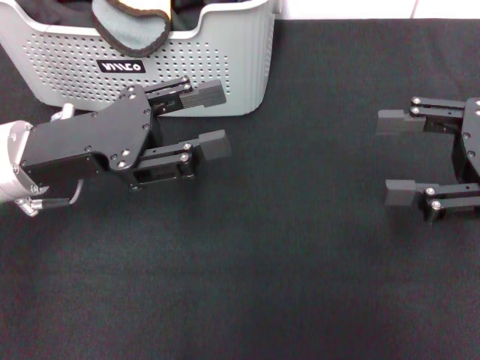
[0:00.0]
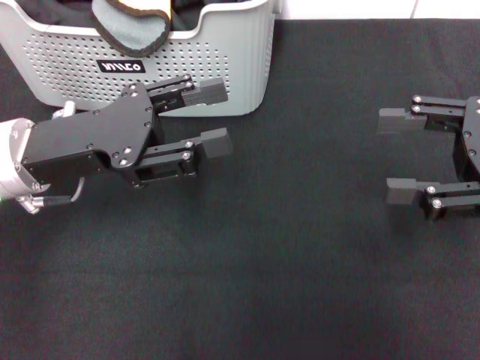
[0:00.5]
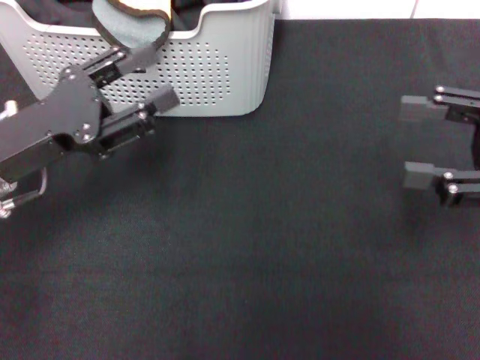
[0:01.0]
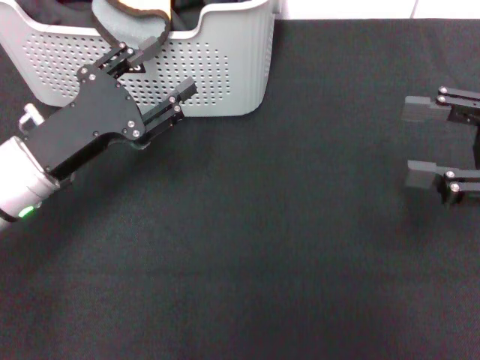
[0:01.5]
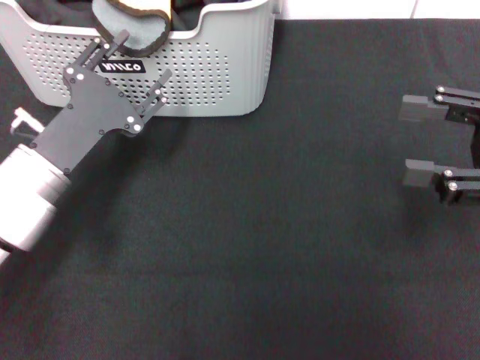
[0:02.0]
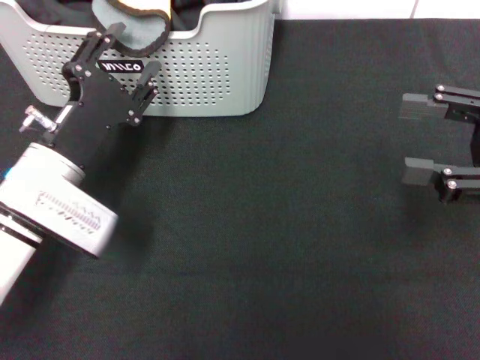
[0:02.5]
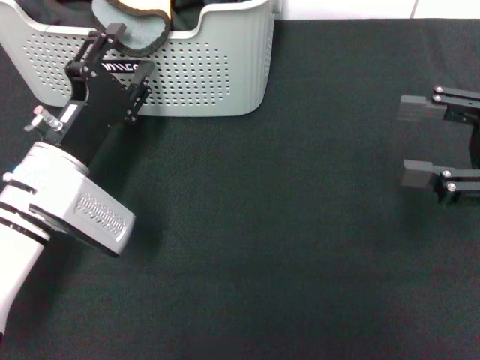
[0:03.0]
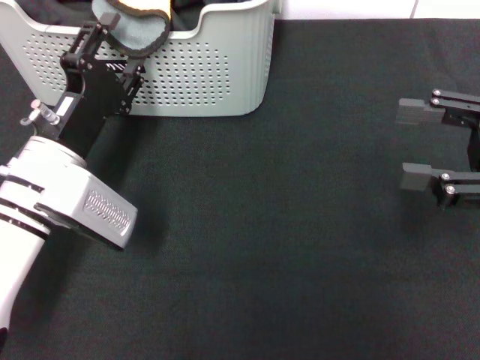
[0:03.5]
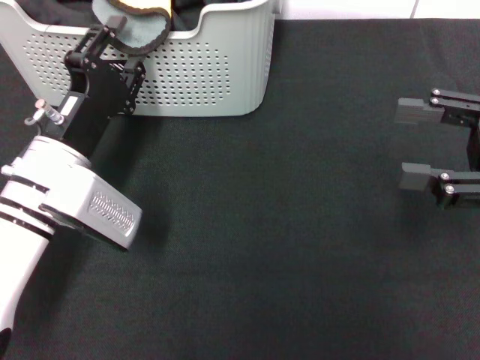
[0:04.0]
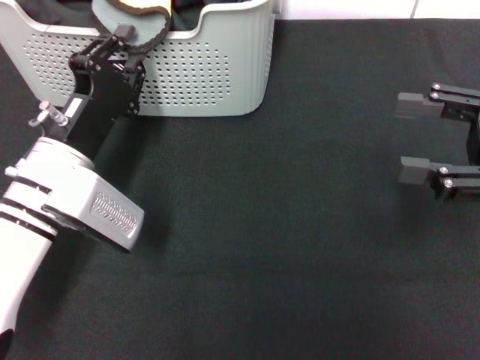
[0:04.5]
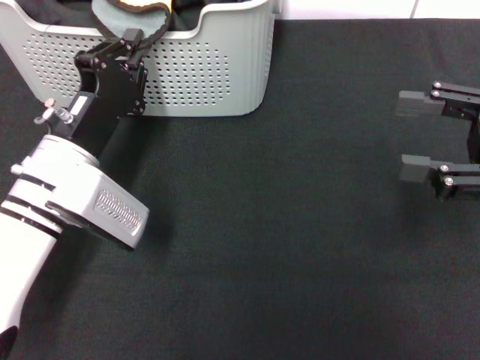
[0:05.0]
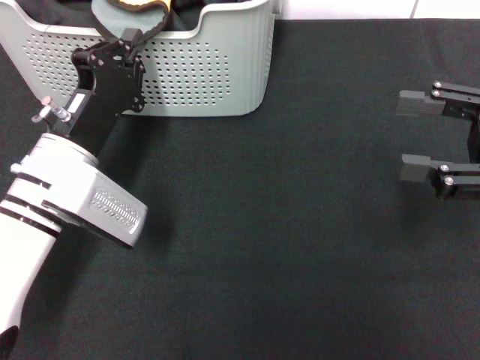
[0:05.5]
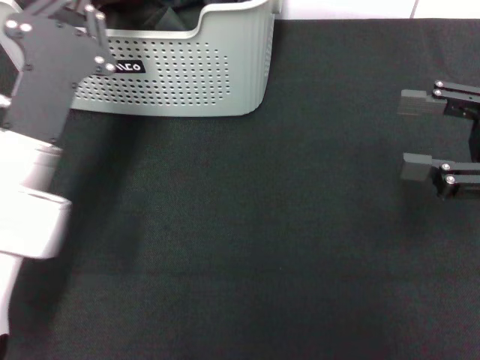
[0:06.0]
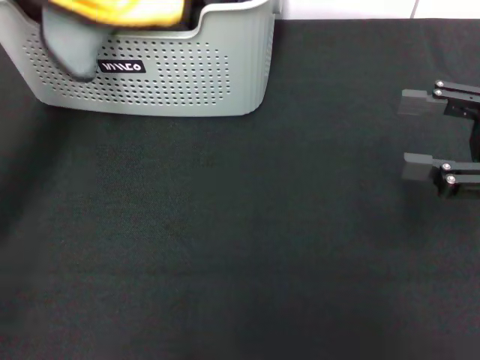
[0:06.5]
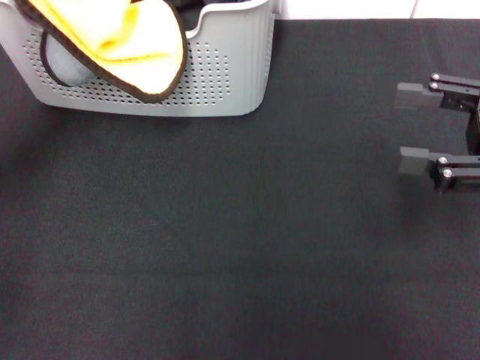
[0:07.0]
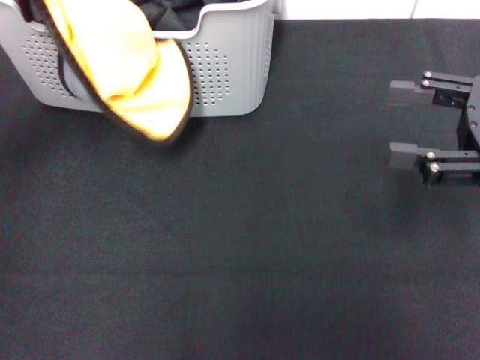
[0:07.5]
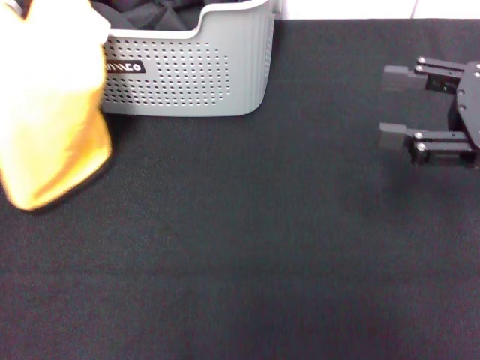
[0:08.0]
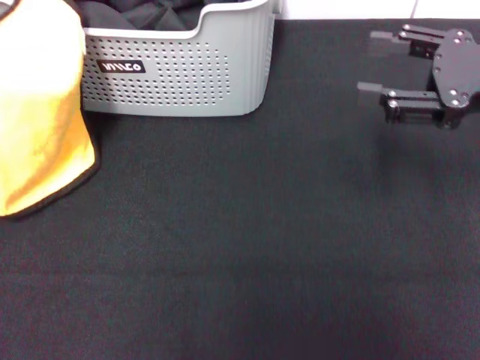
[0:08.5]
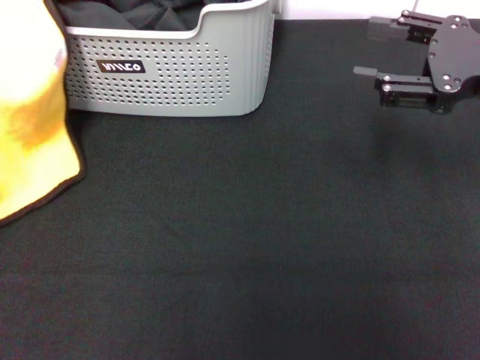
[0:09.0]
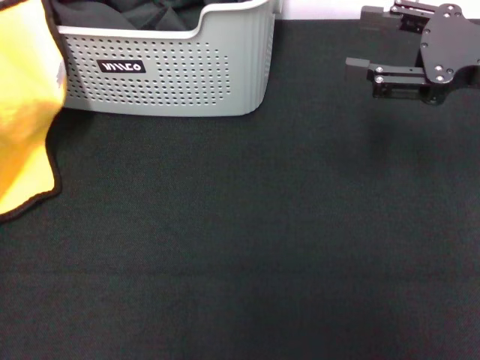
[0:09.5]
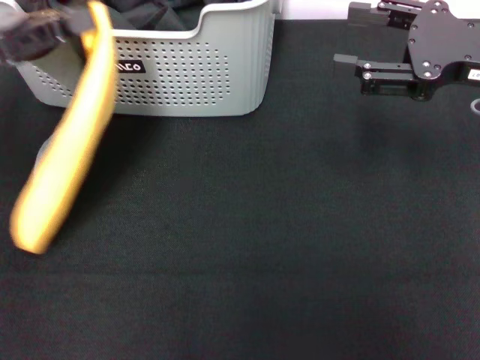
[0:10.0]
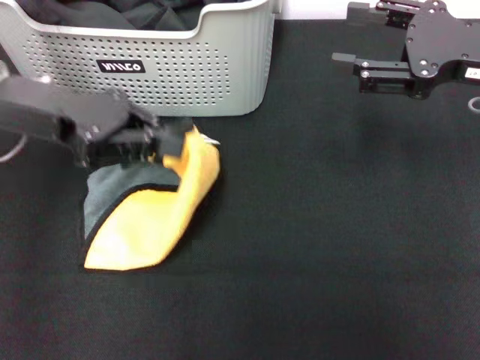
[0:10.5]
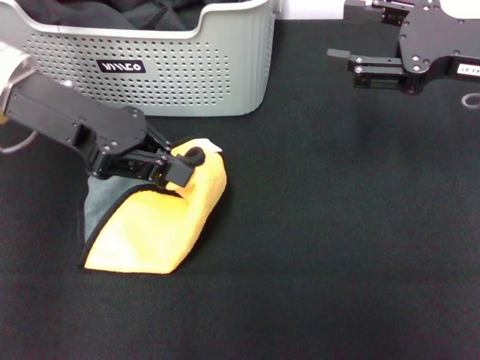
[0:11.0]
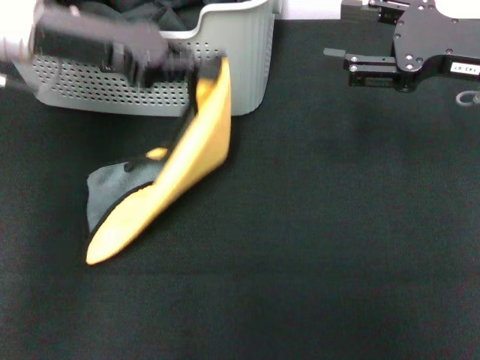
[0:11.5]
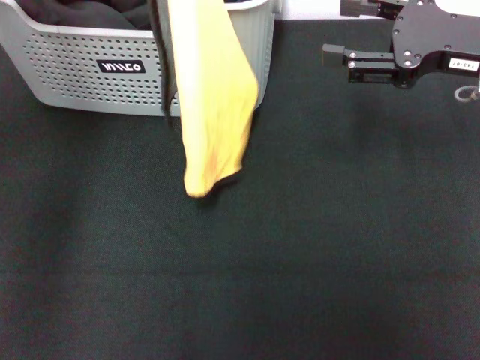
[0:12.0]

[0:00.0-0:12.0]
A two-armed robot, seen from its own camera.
Task of the whole recording: pick up the towel from the storage box and lay it flat on the black tablecloth.
Step, 0:00.0 to 0:05.5: Pick up a towel with the left gripper.
0:00.0 to 0:02.0: The left gripper is displaced downward by some 5 cm.
0:04.0 to 0:06.0: The left gripper closes up.
0:06.0 to 0:08.0: The left gripper is displaced to the left and upward by roughly 20 cm.
0:08.0 to 0:10.0: The right gripper moves approximately 5 cm. Meanwhile the left gripper travels to the right and forward by roughly 10 cm.
0:10.0 to 0:12.0: The left gripper shifts some 10 cm upward and forward.

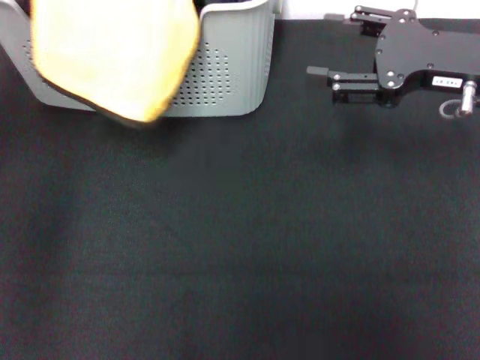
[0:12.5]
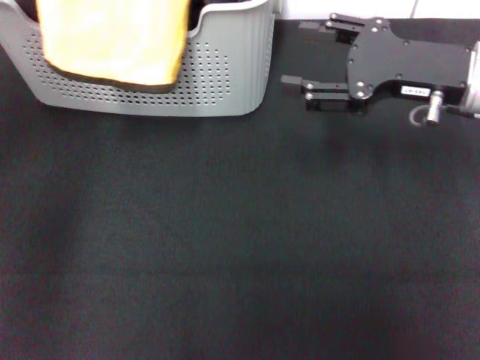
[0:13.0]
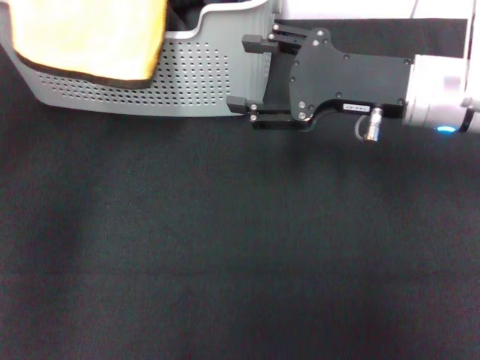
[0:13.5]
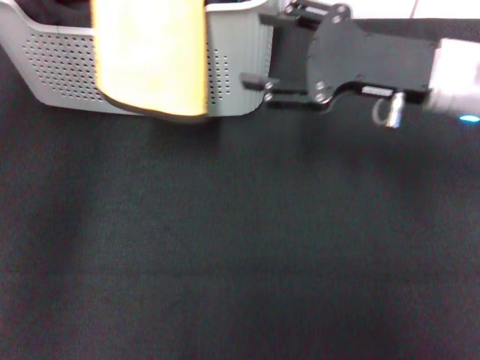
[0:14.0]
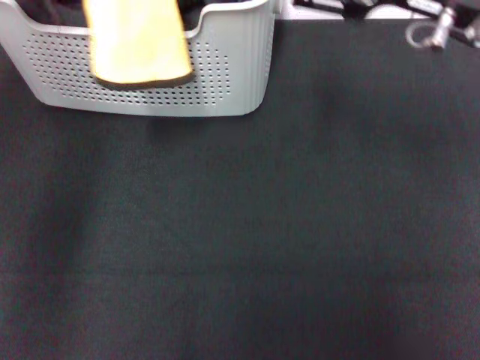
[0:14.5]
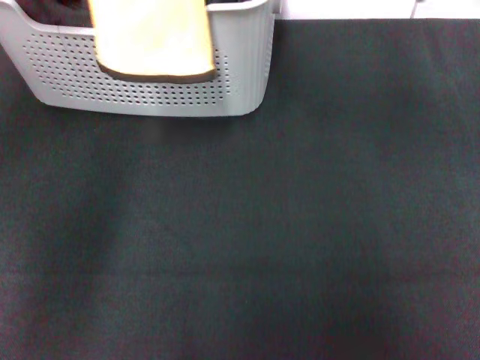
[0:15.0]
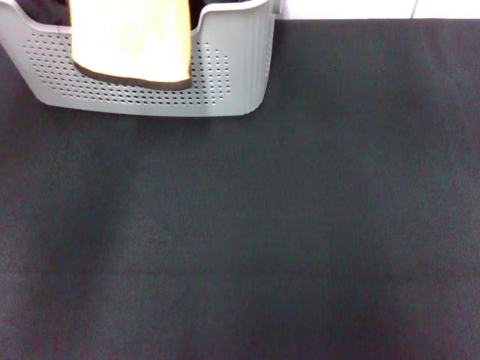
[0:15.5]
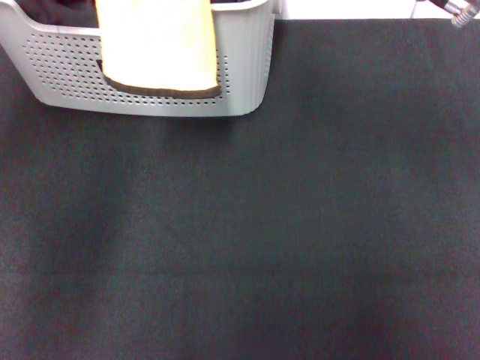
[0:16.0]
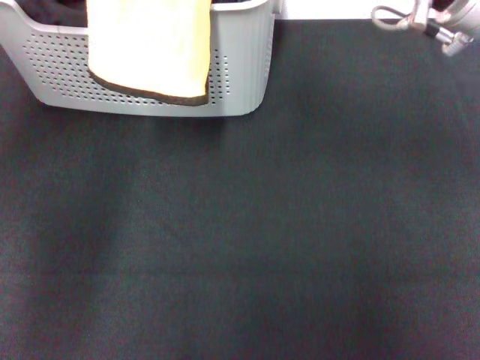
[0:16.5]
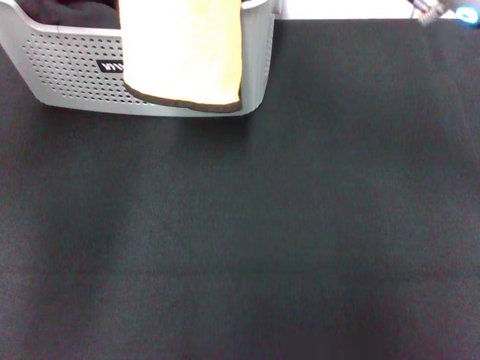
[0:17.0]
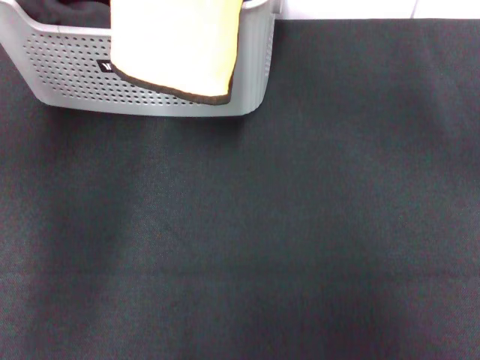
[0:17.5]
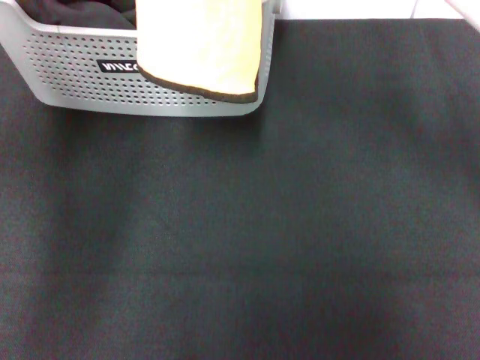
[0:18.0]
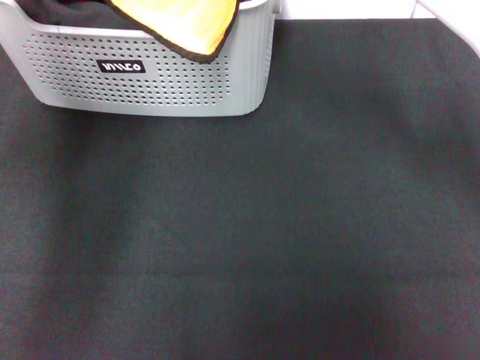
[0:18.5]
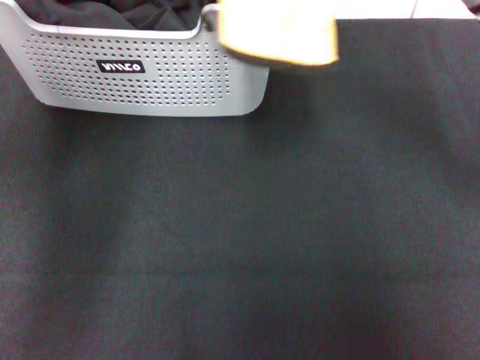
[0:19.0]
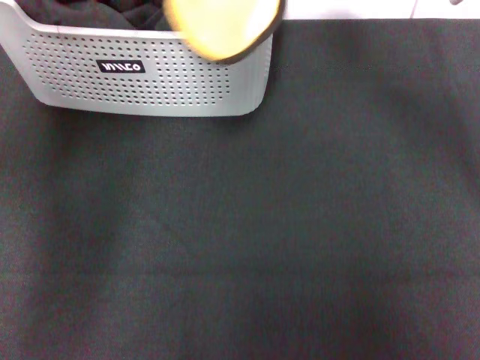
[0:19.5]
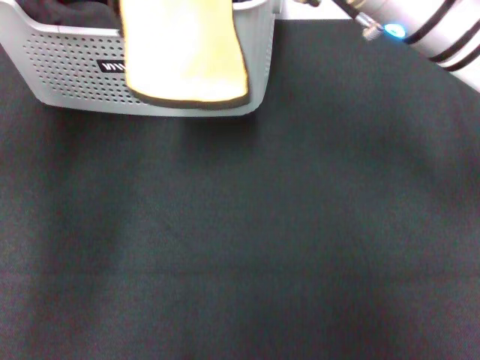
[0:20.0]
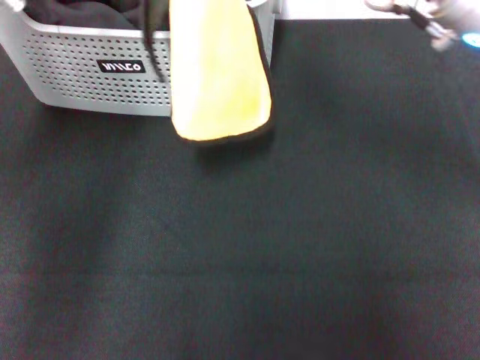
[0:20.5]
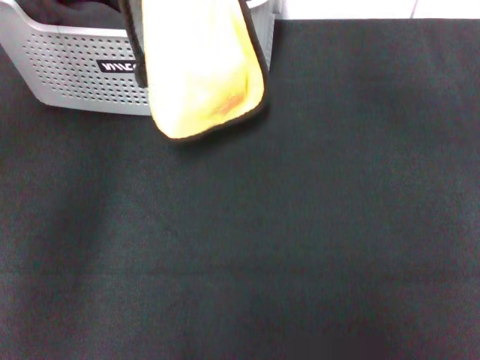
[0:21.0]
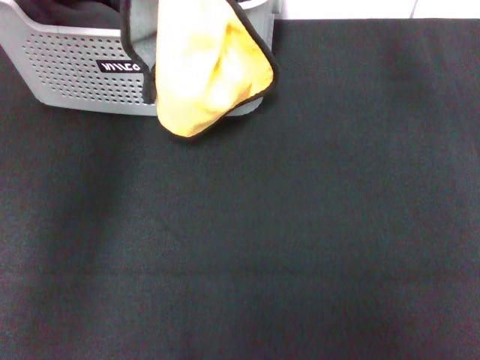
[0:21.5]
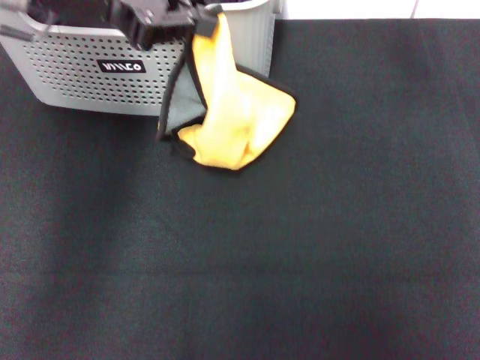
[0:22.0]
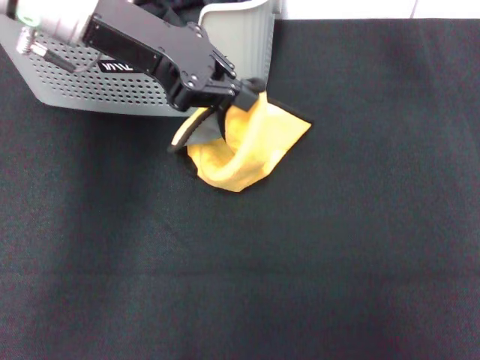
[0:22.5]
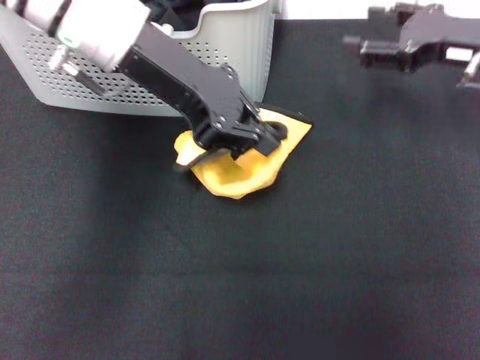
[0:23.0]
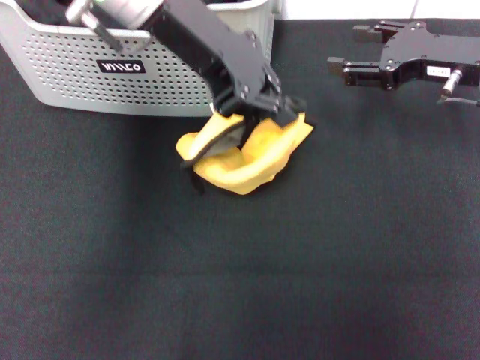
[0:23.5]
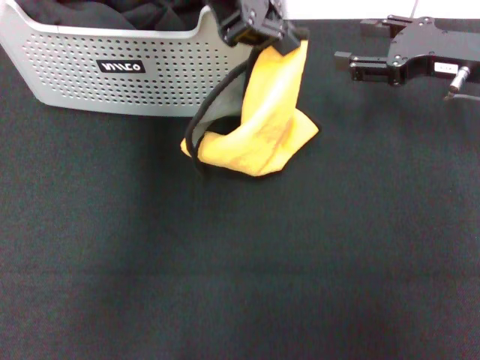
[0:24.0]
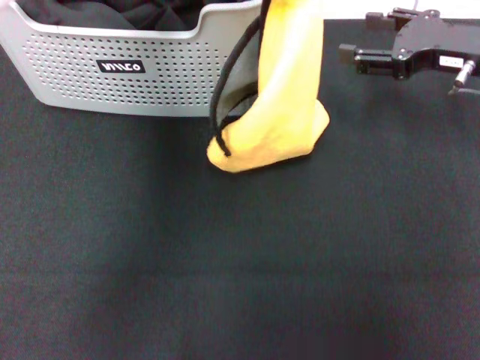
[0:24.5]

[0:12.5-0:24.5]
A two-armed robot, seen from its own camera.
Task of the whole recording: pick up the towel from the storage box and lay it flat on the black tablecloth.
0:12.5 to 0:14.5: The right gripper ends up about 5 cm from where it was.
0:16.5 to 0:18.5: The right gripper goes roughly 10 cm to the left and forward; the left gripper is displaced to the right by roughly 5 cm.
0:18.5 to 0:20.5: The right gripper goes left and right, roughly 10 cm each way, reversing 2 times.
0:20.5 to 0:22.5: The left gripper travels to the right by about 5 cm, while the right gripper goes some 10 cm to the right.
0:22.5 to 0:24.5: The left gripper travels upward and to the right by about 15 cm. The right gripper heads downward, covering about 5 cm.

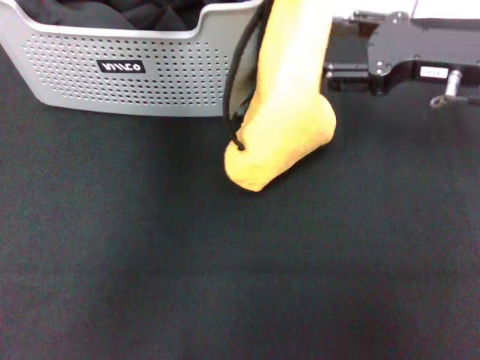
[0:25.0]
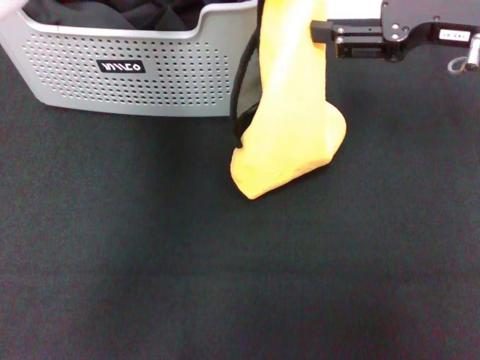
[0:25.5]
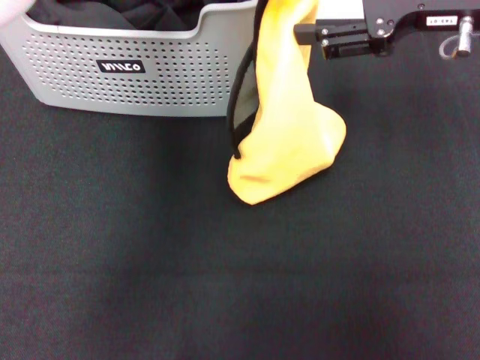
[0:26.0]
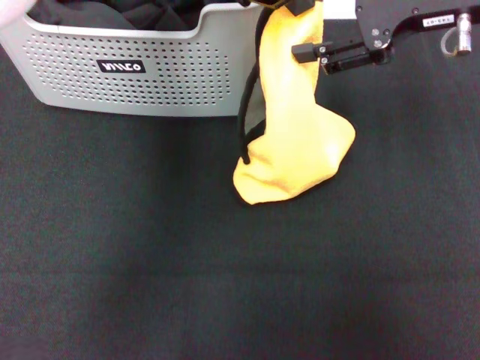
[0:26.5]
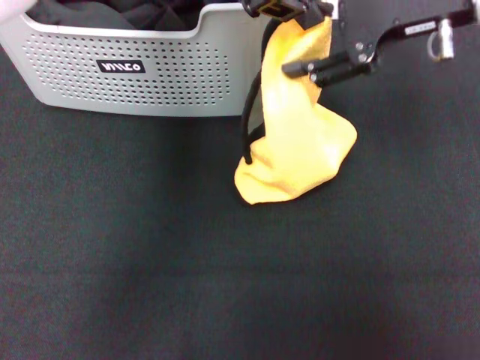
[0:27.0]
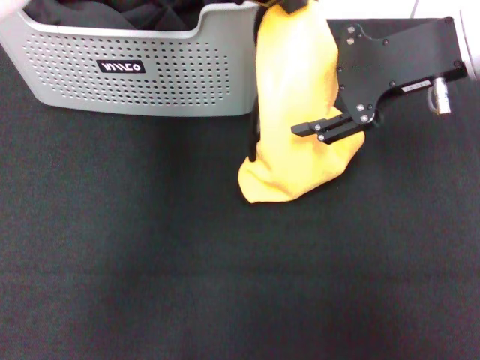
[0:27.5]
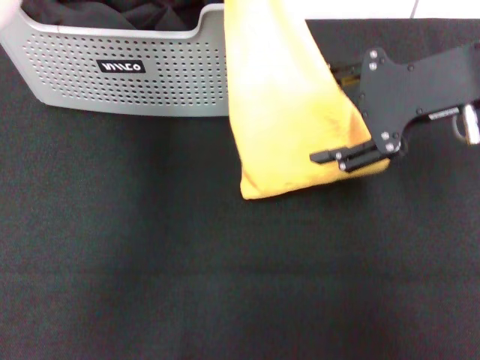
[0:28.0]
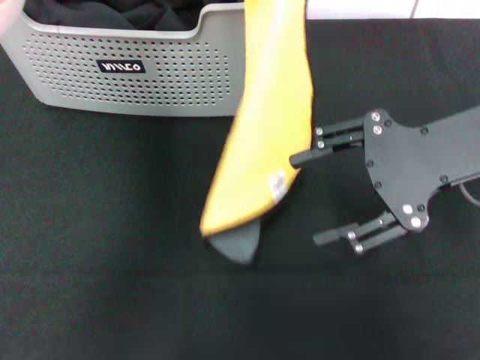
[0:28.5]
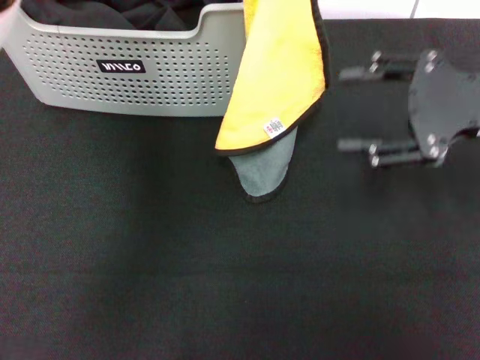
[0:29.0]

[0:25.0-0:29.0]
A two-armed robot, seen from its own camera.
Task of the whole recording: pick up the towel from the storage box and lay it flat on the black tablecloth.
0:25.0 to 0:27.0: The right gripper moves upward, approximately 10 cm.
0:27.0 to 0:29.0: The left gripper travels to the left by some 5 cm. The right gripper goes some 10 cm backward, to the right and downward.
